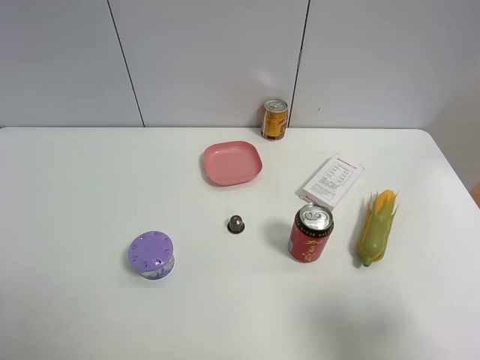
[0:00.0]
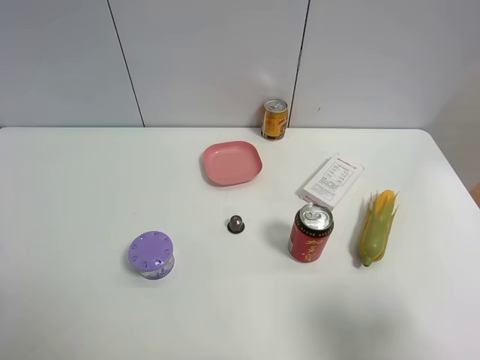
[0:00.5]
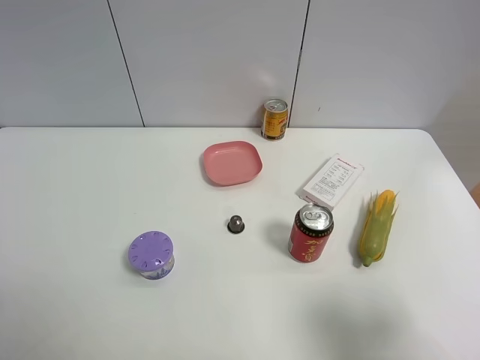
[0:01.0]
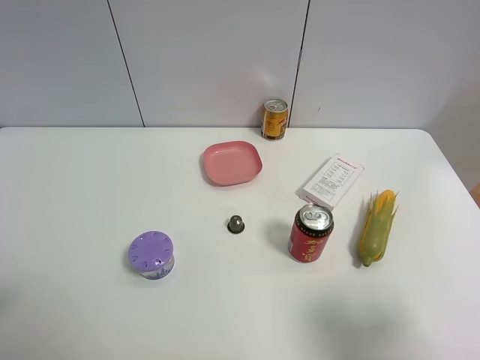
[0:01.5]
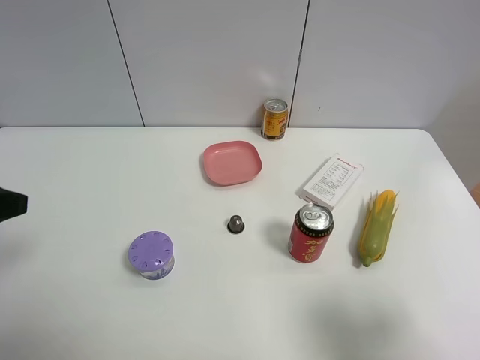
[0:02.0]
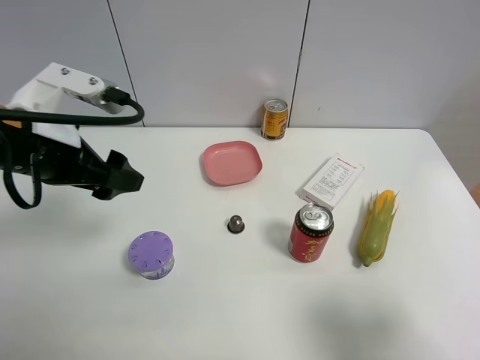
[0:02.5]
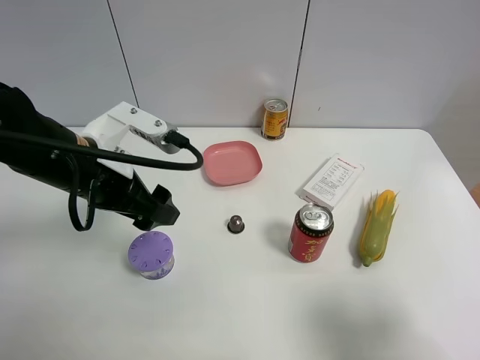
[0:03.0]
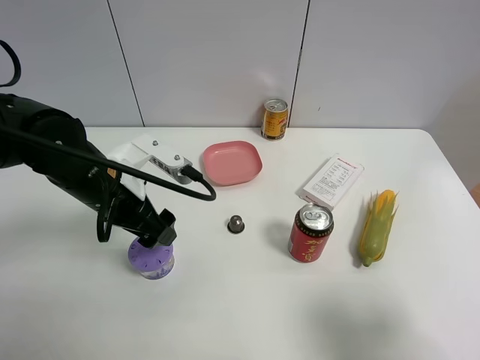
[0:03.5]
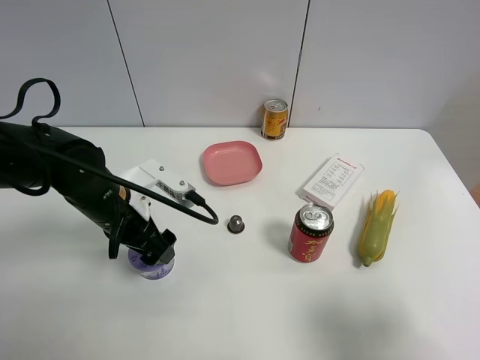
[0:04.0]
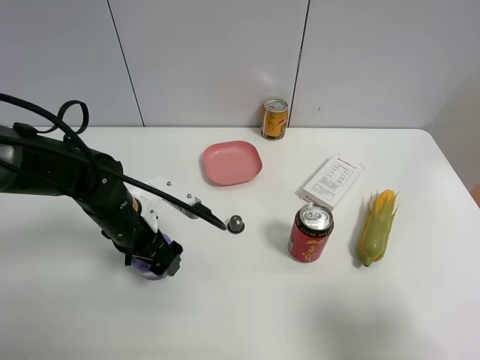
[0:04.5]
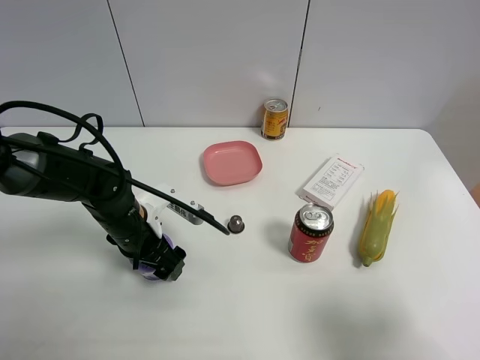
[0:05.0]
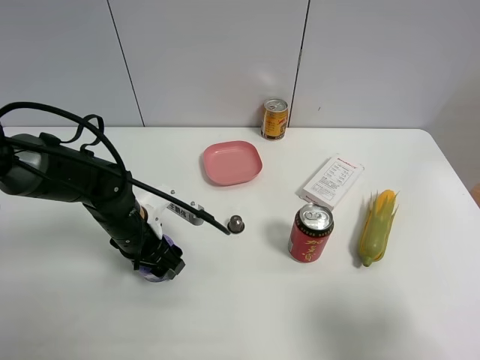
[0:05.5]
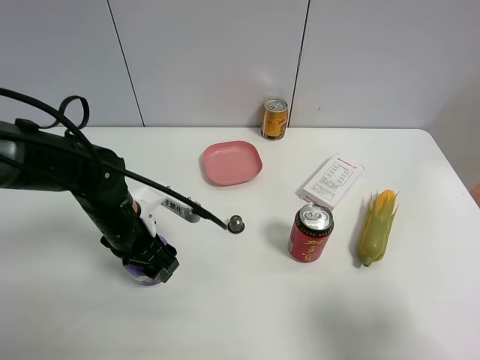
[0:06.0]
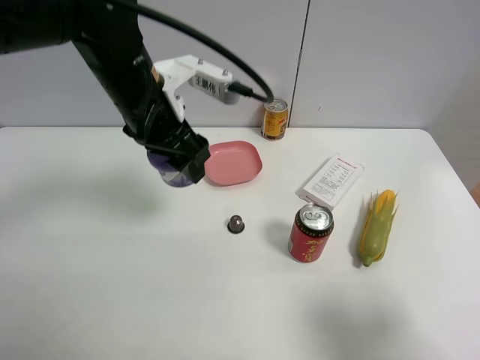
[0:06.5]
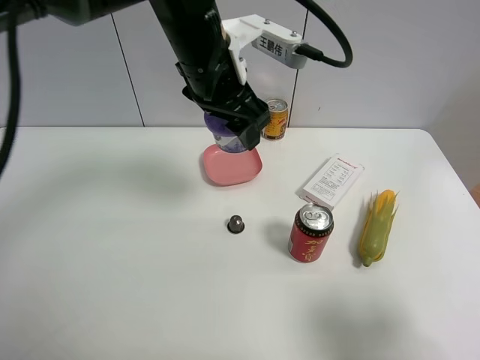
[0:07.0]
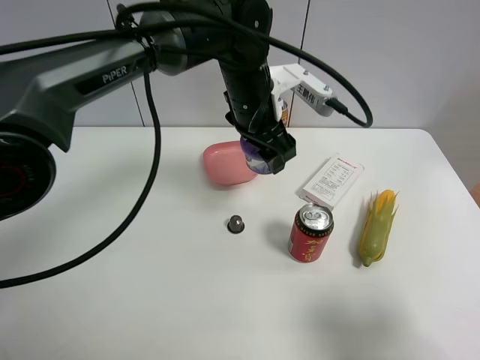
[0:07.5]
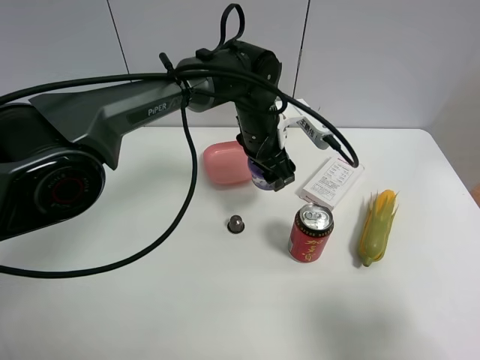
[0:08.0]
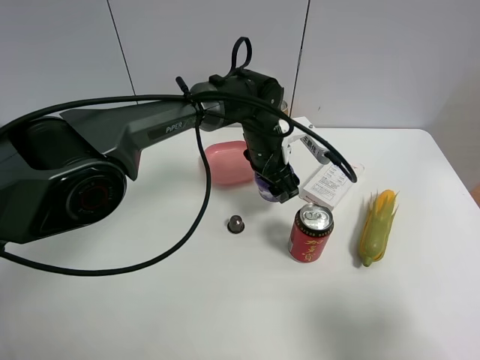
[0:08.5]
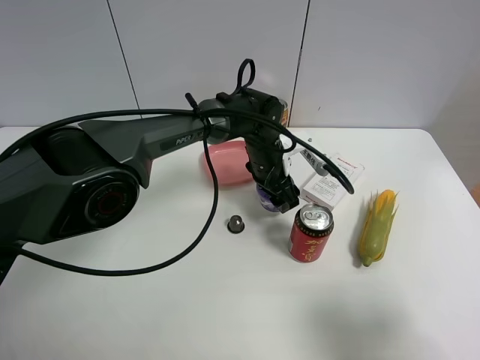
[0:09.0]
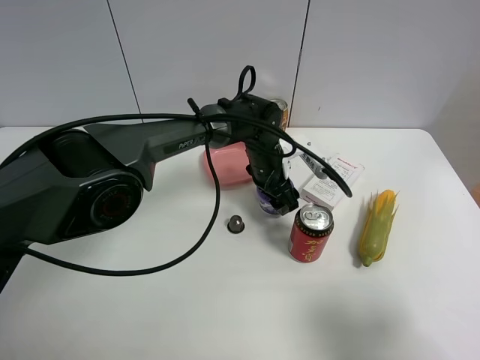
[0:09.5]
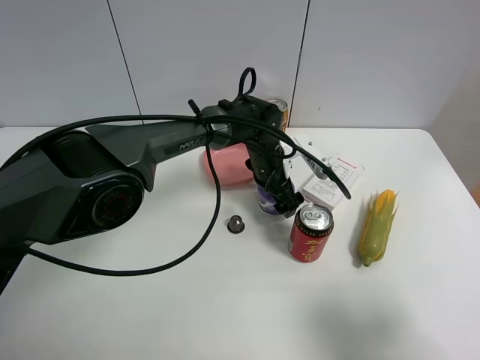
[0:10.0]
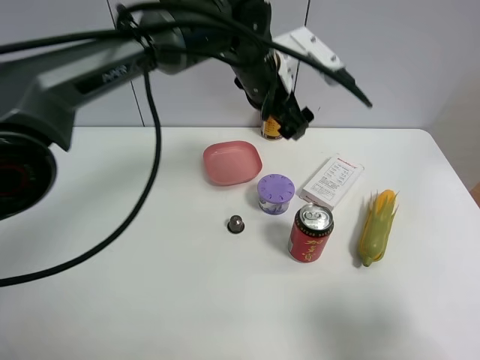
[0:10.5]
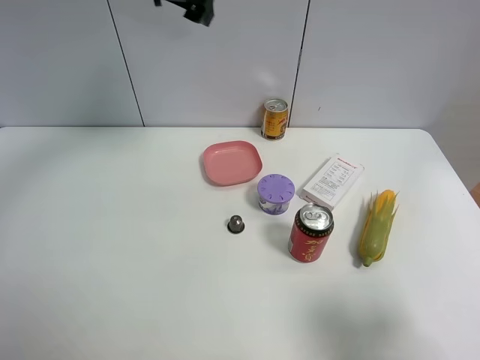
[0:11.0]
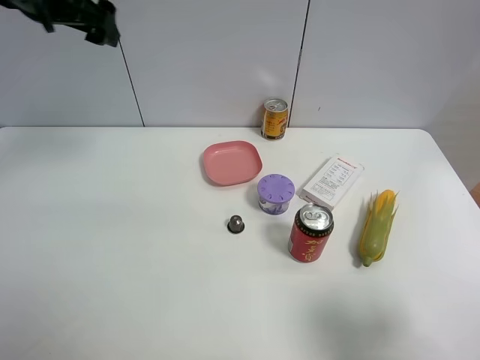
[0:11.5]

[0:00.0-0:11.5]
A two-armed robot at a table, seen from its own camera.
Task of the whole recording: the gripper move the object.
Step, 0:00.0 to 0:05.0: Grasp the Incense box with the left gripper.
Step, 0:05.5 to 0:10.0: Place the Incense box on the table with the left gripper.
0:00.0 to 0:02.0: The left gripper moves forward, about 15 cm, and closes.
0:02.0 to 0:04.0: The left gripper goes some 25 cm to the right, downward and forward.
0:04.0 to 0:06.0: The left gripper closes.
0:06.0 to 0:07.5: The left gripper shifts roughly 25 cm to the right, forward and upward.
0:07.5 to 0:09.5: The left gripper is displaced downward by roughly 15 cm.
0:09.5 to 0:11.5: The left gripper heads to the left and upward, covering about 40 cm, and opens its fingers.

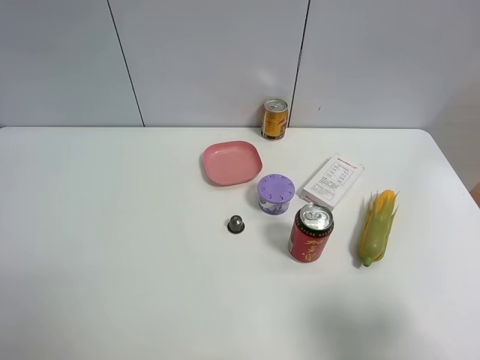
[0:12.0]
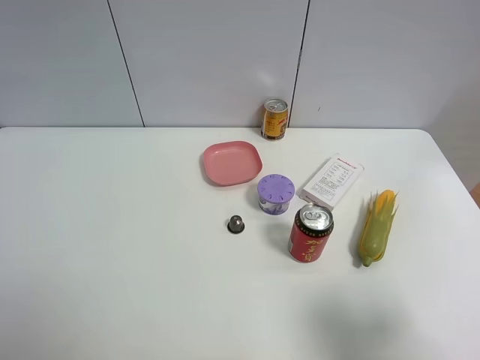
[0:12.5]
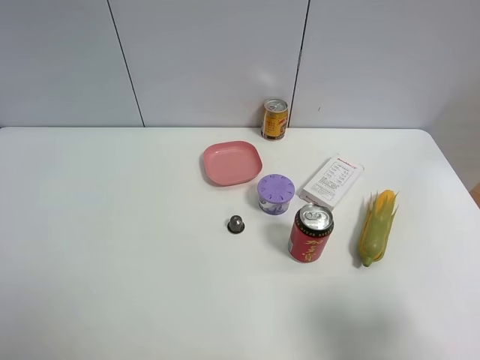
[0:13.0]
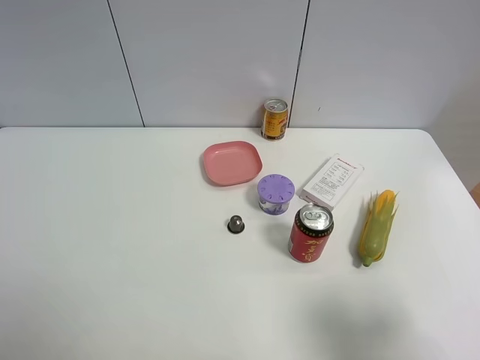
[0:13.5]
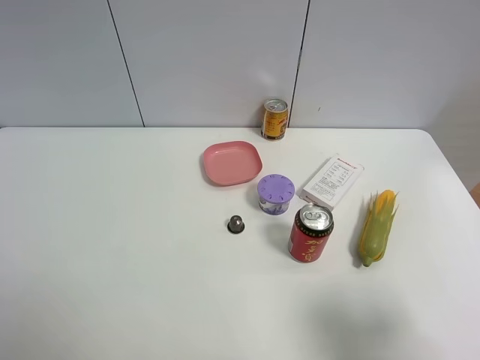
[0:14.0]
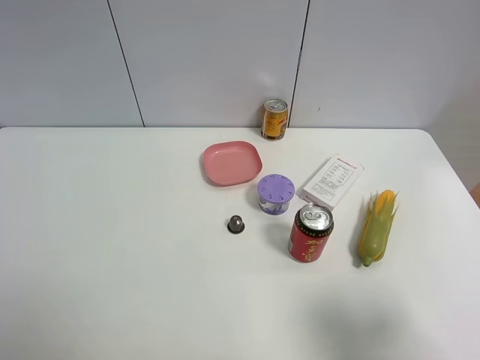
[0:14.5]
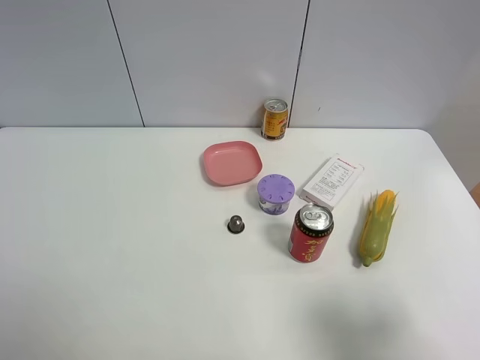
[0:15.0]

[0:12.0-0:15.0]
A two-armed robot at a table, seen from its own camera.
Task of the whole recording: the gripper move the object.
0:13.5 to 0:15.0: The two grippers keep their place.

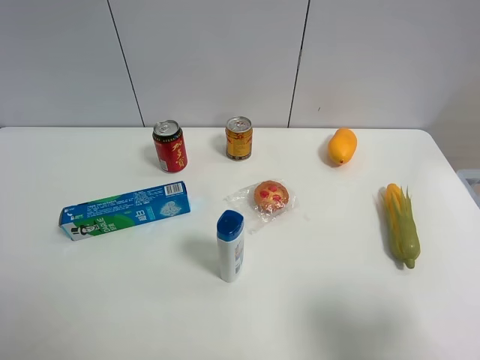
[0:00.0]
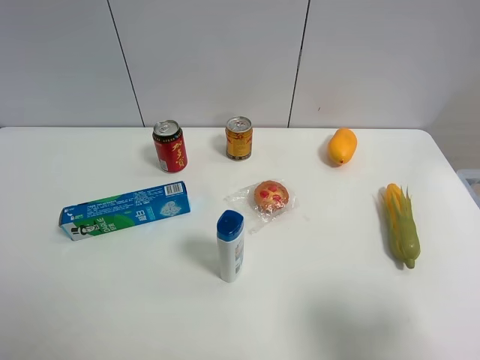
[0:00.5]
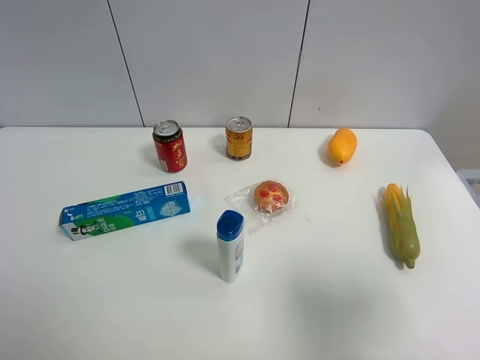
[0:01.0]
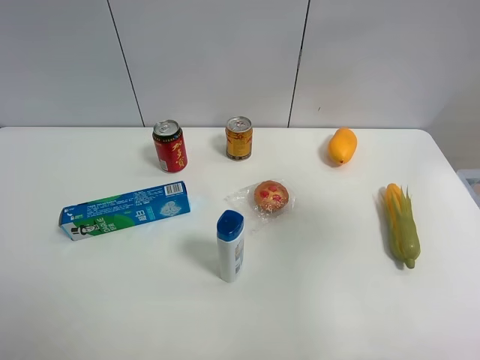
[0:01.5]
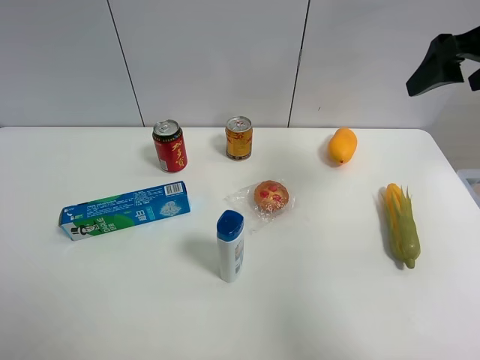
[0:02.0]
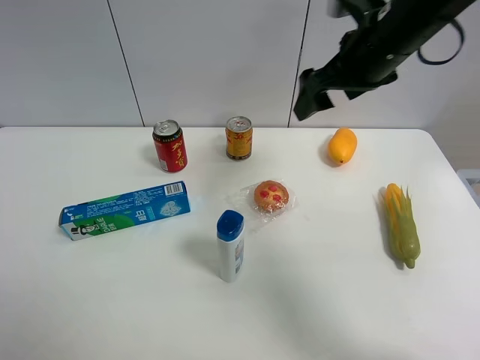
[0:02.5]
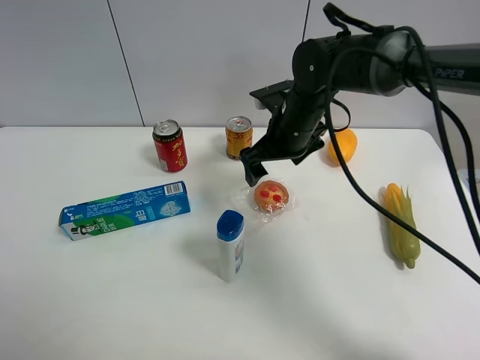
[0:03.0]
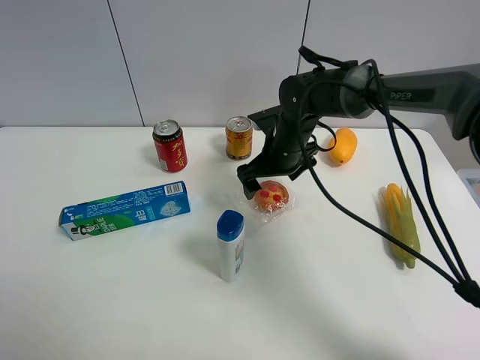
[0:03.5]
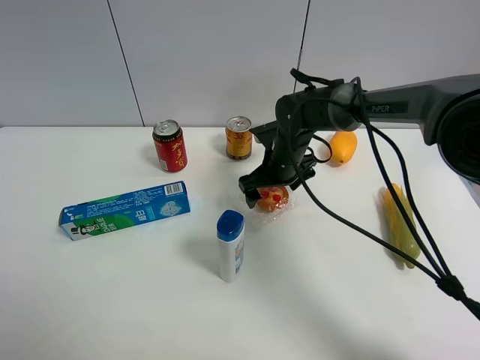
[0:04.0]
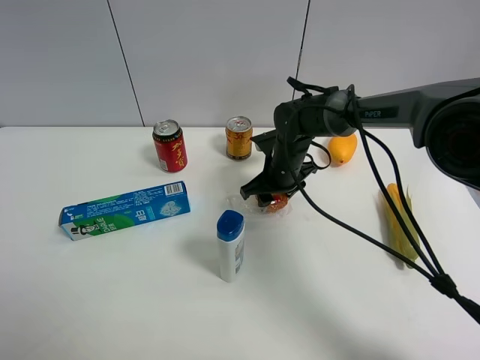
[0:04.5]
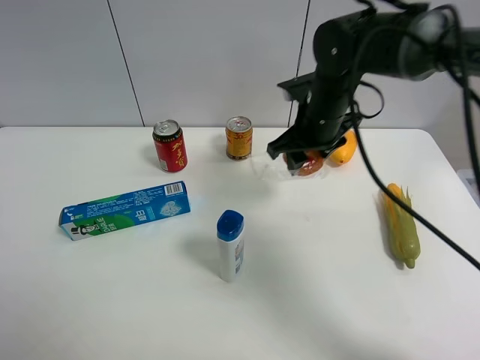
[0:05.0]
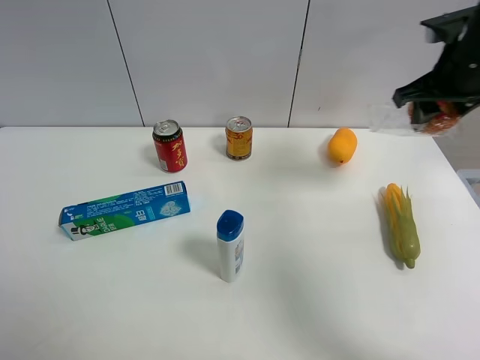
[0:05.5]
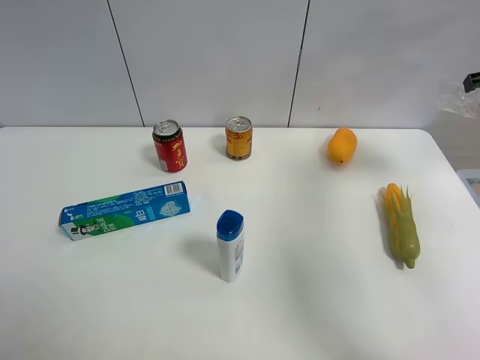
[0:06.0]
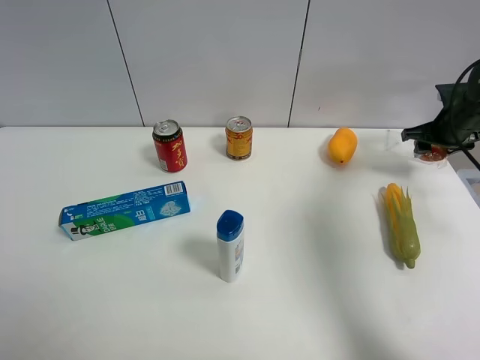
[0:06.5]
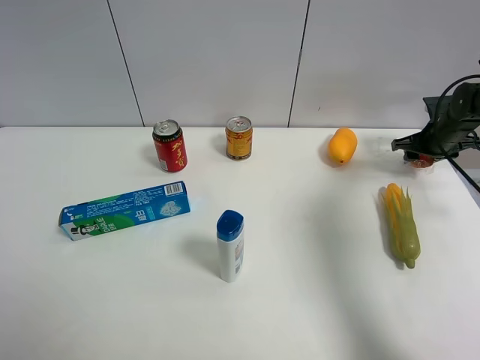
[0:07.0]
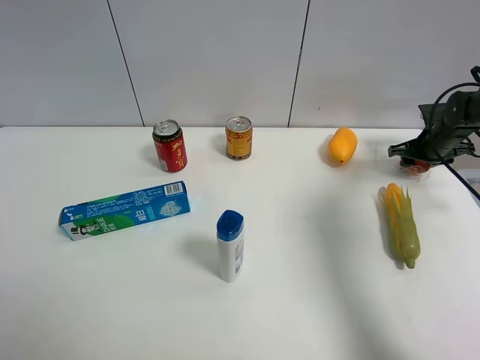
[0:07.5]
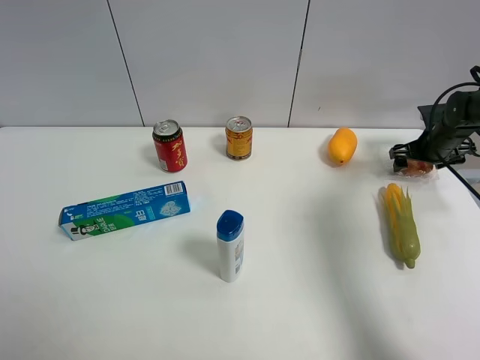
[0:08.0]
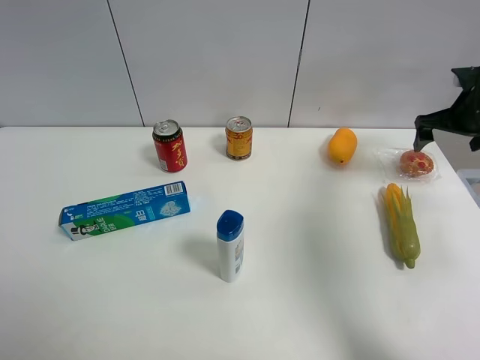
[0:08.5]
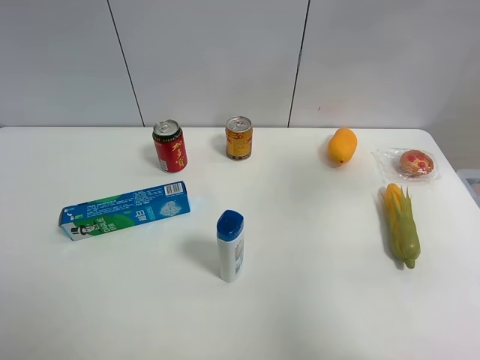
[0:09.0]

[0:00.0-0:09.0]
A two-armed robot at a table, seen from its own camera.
Task of the whole recording: the gripper move the object.
Step, 0:00.0 to 0:04.0: Grasp the egg tart with the right gripper.
Step, 0:04.5 to 0:08.0: Place the egg tart on the table with the right gripper.
0:00.0 to 0:02.0: The right gripper moves forward, roughly 30 cm.
0:02.0 to 0:04.5: The right gripper shifts some 35 cm downward and to the left, and closes up.
0:04.5 to 0:07.0: The right gripper is displaced to the right by approximately 30 cm.
0:07.0 to 0:09.0: The right gripper is displaced upward and backward by about 35 cm, and opens up.

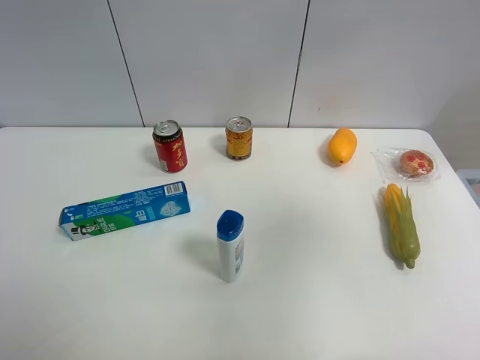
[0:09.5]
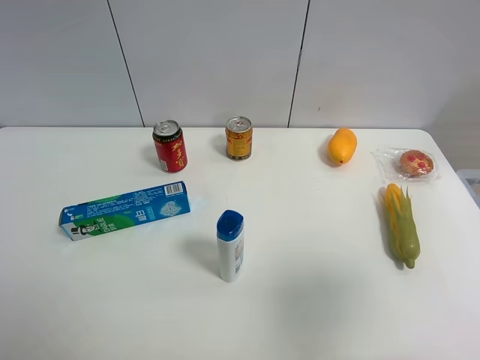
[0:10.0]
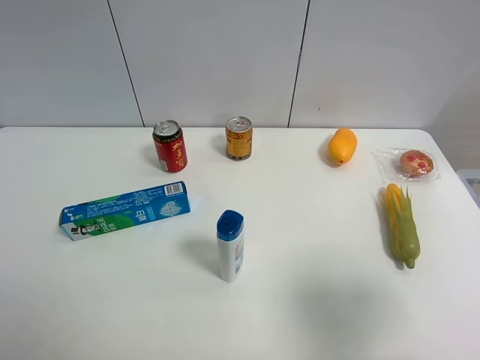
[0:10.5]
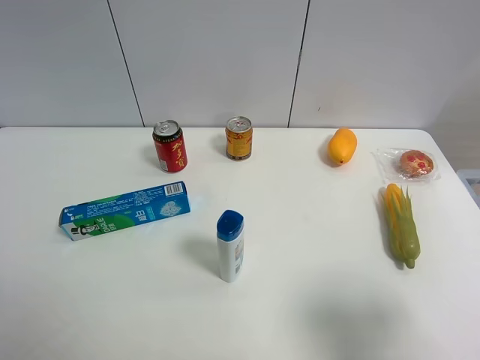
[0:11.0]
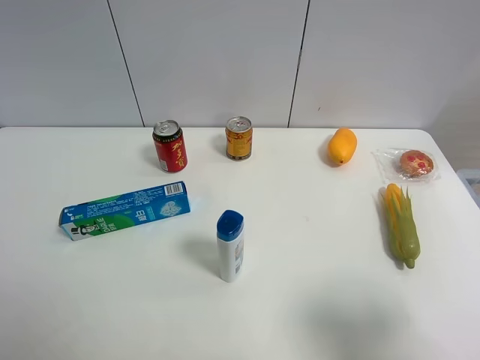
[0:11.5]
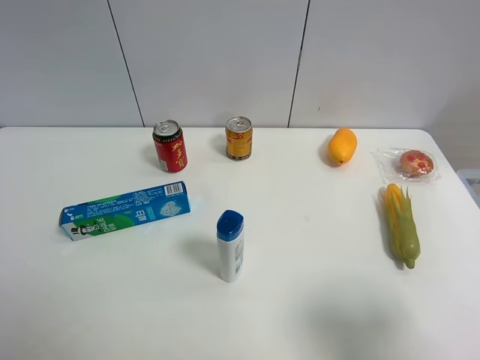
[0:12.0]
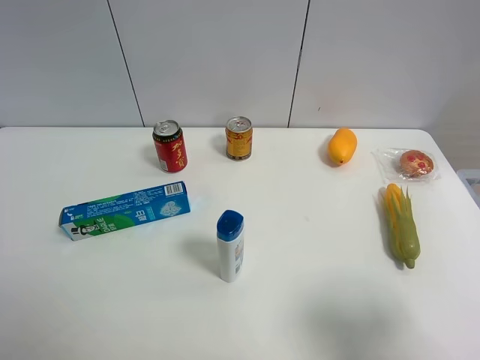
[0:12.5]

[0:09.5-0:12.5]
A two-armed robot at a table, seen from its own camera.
Task of the whole recording: the gripper move the object.
0:09.5 to 0:11.0: The right gripper travels downward by approximately 20 cm.
0:11.0 to 0:12.5: Neither gripper changes place.
